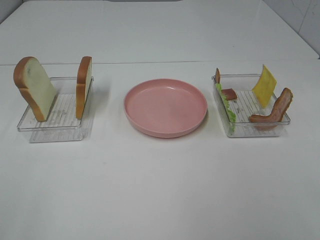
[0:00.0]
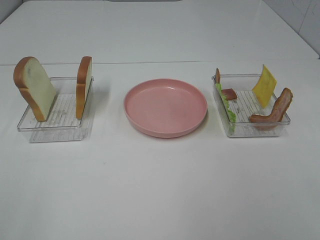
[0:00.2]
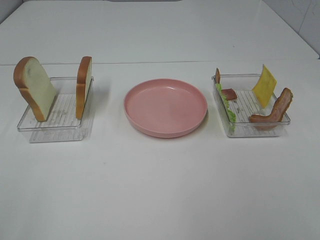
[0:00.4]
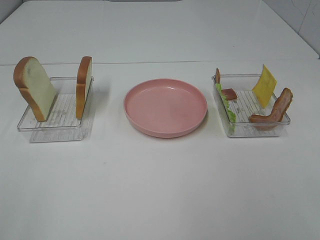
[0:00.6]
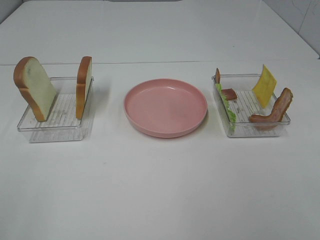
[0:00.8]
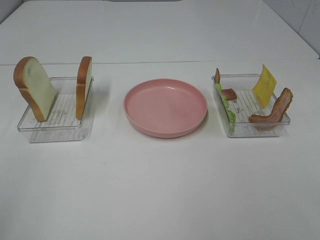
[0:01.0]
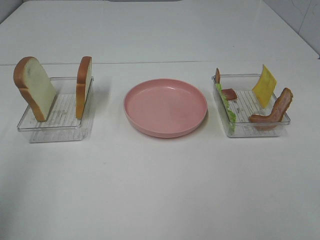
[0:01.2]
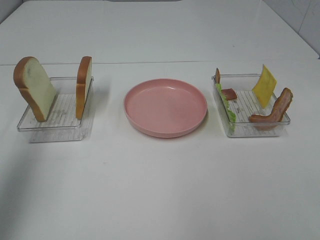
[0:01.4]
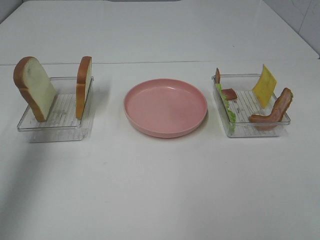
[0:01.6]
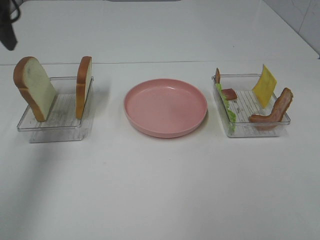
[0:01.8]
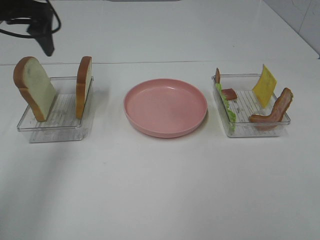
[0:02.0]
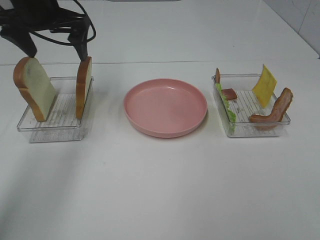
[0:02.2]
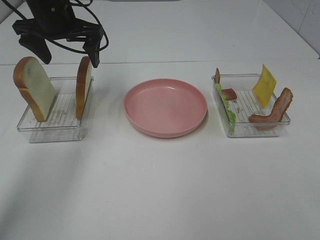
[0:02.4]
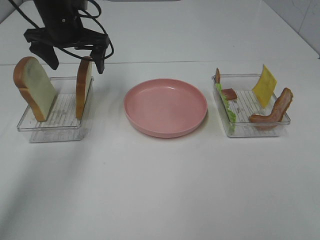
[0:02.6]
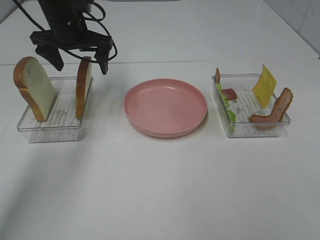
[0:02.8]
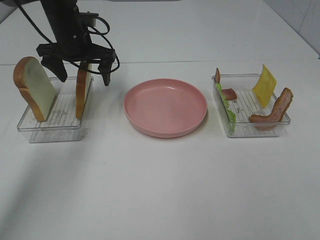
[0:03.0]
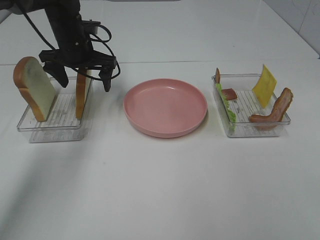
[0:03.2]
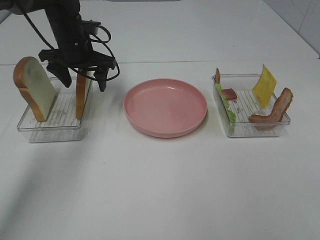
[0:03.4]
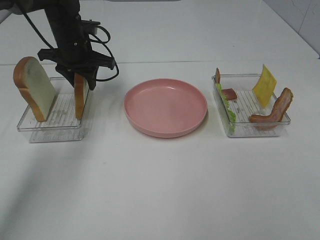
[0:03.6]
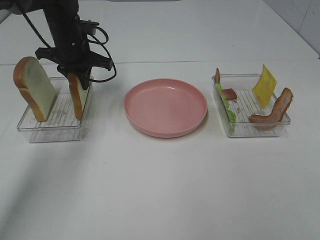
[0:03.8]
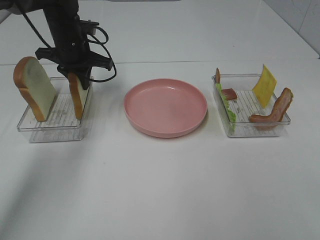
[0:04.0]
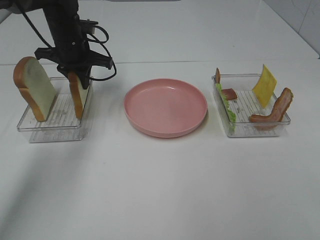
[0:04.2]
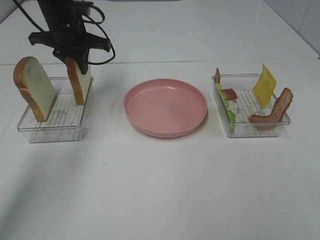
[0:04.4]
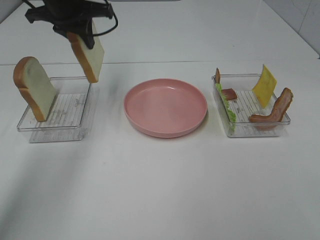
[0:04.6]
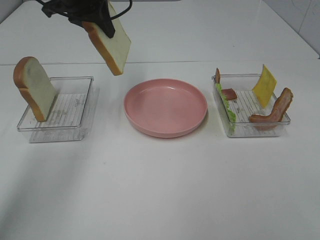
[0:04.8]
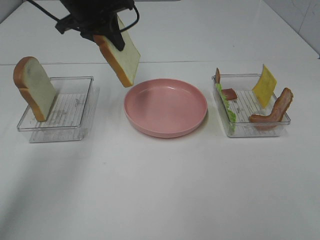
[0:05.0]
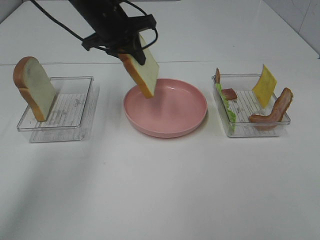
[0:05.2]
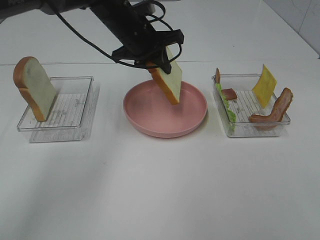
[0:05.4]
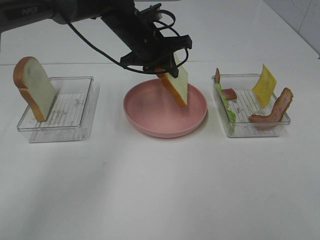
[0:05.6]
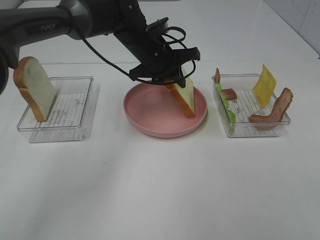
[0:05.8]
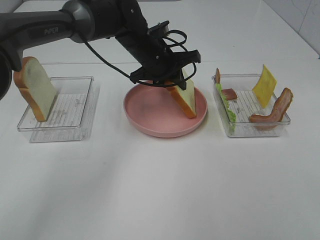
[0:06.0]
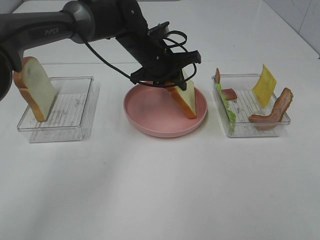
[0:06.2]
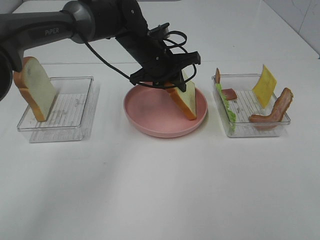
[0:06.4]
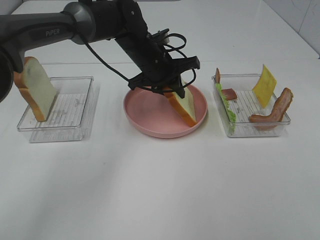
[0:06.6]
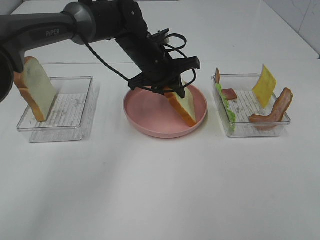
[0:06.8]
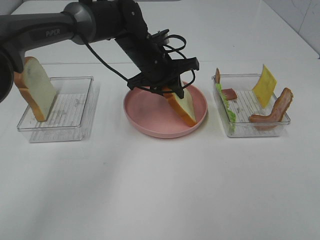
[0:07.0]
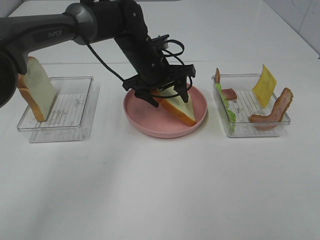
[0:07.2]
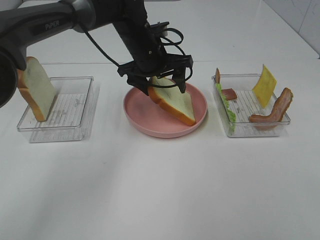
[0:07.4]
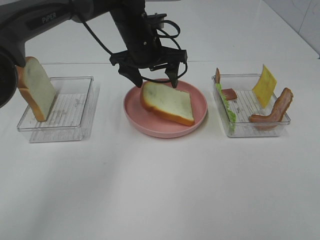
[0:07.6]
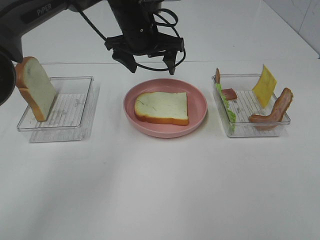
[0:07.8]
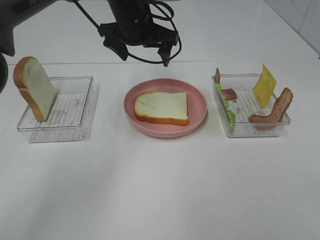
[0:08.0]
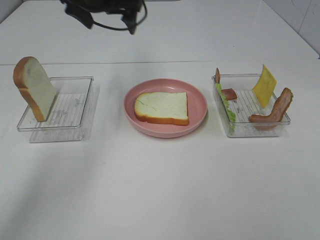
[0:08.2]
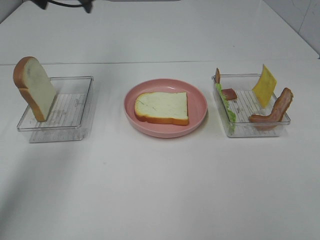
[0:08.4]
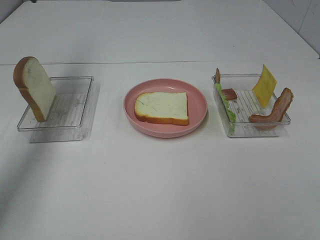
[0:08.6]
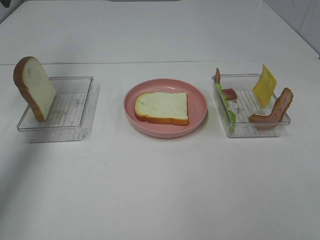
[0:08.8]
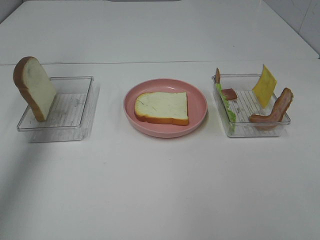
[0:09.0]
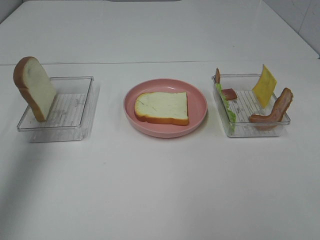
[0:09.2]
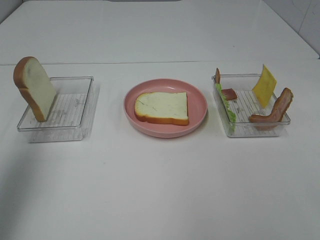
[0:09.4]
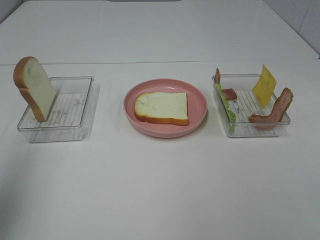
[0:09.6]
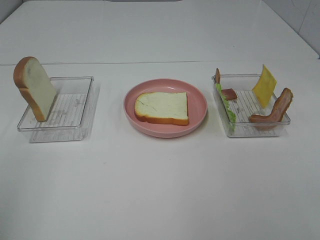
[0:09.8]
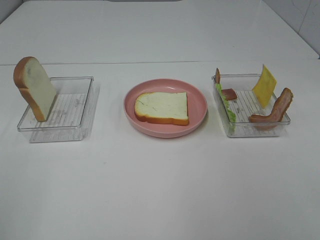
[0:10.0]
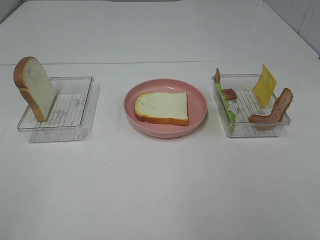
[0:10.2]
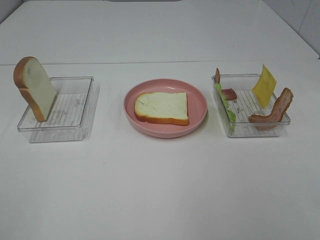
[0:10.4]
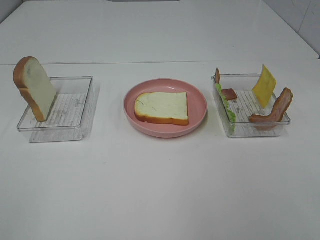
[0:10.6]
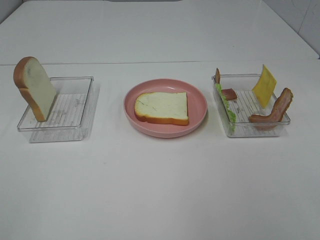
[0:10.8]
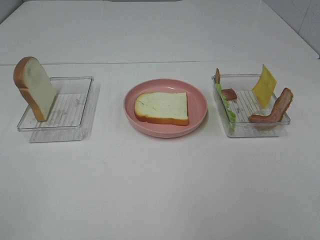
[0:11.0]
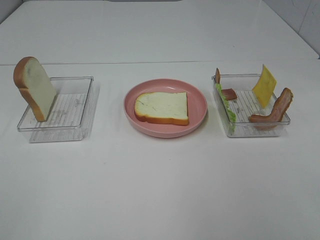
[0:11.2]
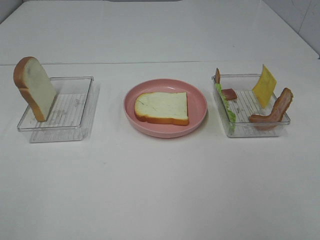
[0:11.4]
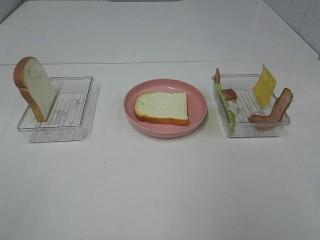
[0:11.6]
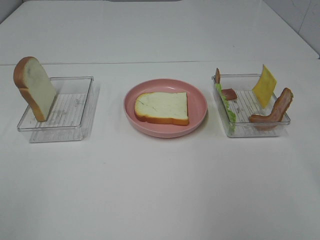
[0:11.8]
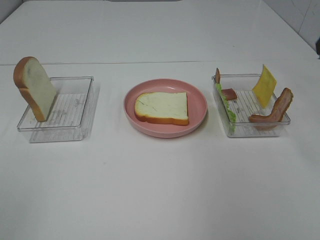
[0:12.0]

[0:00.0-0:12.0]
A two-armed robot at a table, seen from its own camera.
Task of the whole recording: Make sandwiches.
Step, 0:00.0 to 0:03.8: Left hand:grab the bread slice.
Step, 0:04.0 to 0:08.0: Left hand:place the bread slice on the plate.
0:00.0 to 0:01.6: The left gripper heads forward, covering about 30 cm.
0:01.6 to 0:03.0: The left gripper heads forward, downward and to the right, covering about 30 cm.
0:03.0 to 0:04.4: The left gripper closes its fingers.
0:04.4 to 0:06.0: The left gripper travels to the right and downward by about 15 cm.
0:06.0 to 0:07.6: The left gripper opens up.
0:07.6 to 0:09.0: The left gripper moves to the left and upward, approximately 35 cm.
0:09.0 to 0:10.4: The left gripper goes about 40 cm backward.

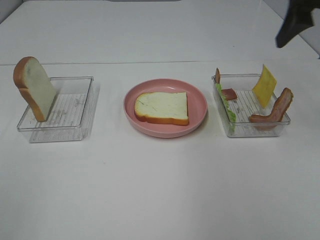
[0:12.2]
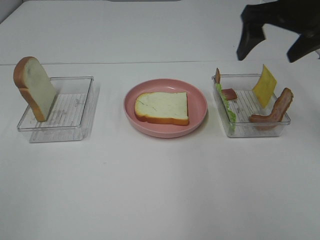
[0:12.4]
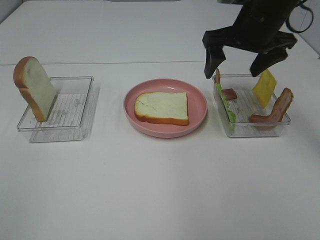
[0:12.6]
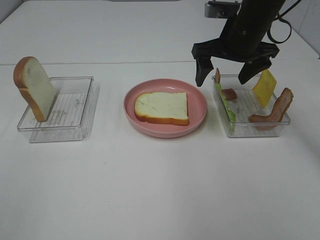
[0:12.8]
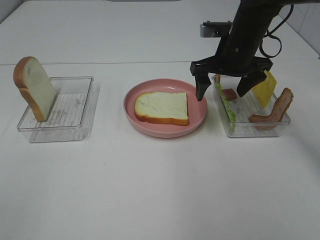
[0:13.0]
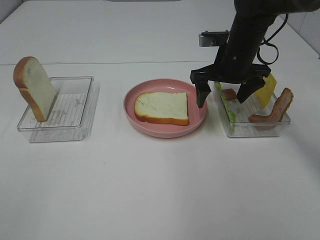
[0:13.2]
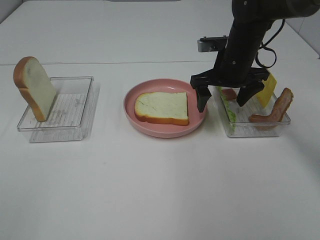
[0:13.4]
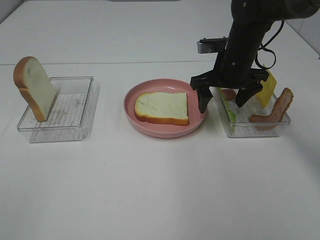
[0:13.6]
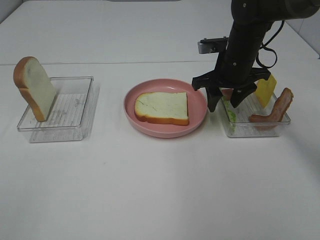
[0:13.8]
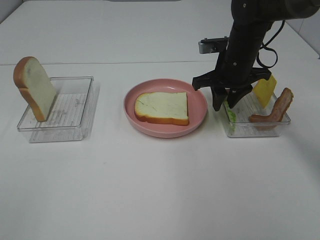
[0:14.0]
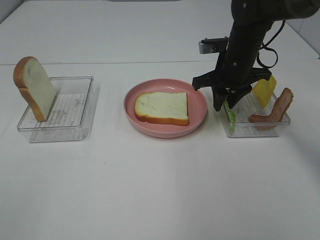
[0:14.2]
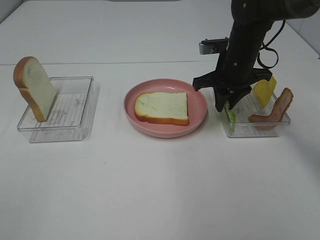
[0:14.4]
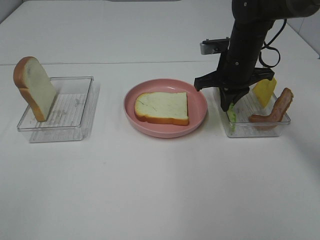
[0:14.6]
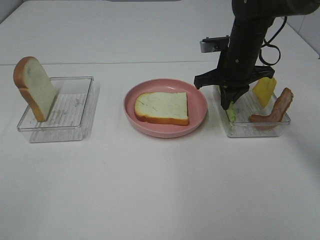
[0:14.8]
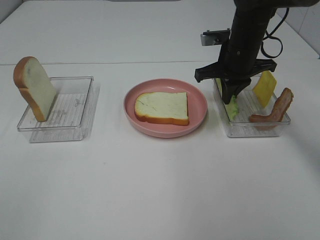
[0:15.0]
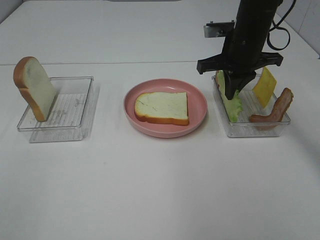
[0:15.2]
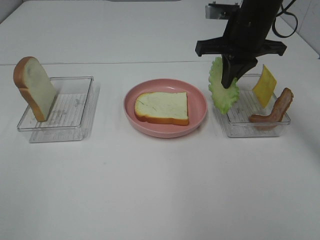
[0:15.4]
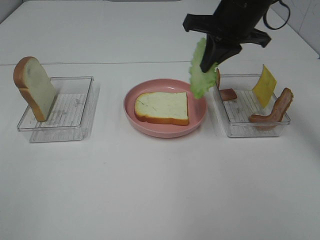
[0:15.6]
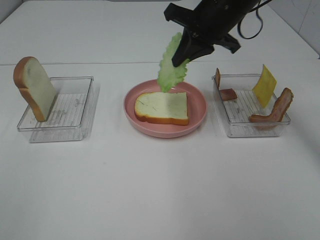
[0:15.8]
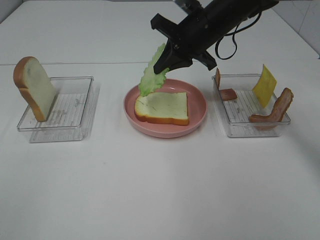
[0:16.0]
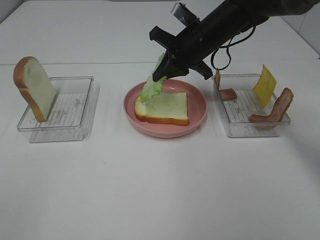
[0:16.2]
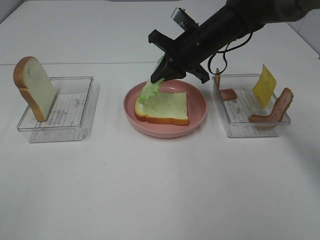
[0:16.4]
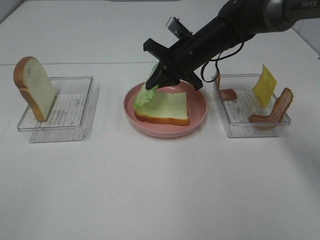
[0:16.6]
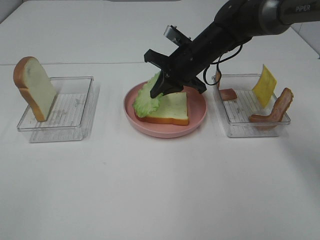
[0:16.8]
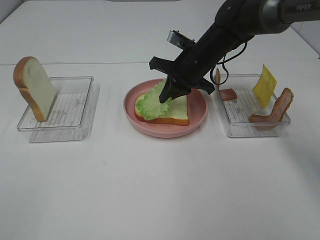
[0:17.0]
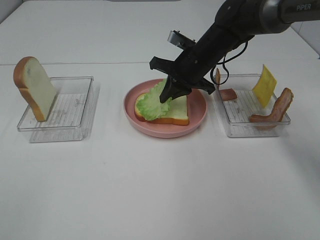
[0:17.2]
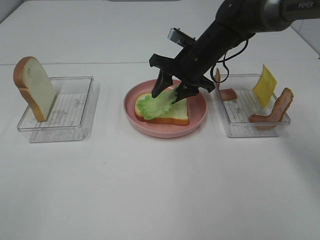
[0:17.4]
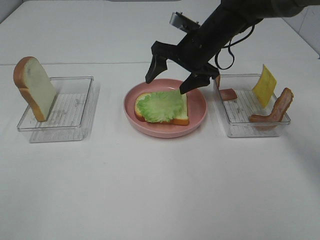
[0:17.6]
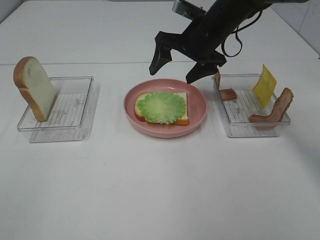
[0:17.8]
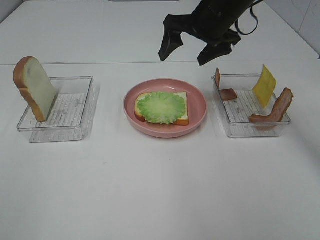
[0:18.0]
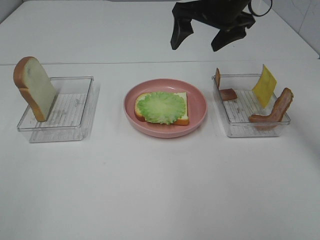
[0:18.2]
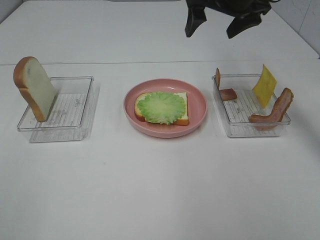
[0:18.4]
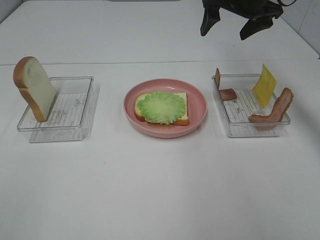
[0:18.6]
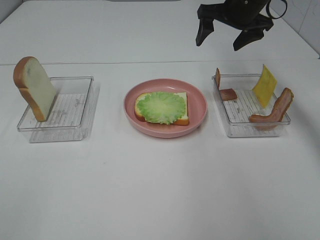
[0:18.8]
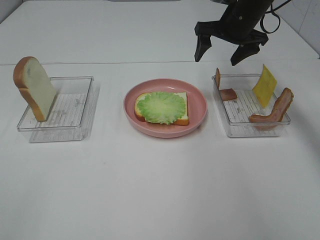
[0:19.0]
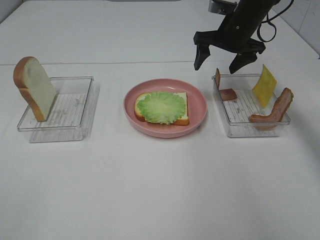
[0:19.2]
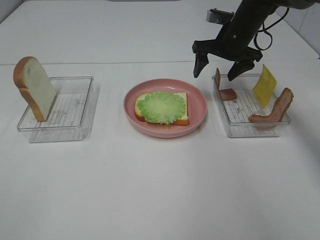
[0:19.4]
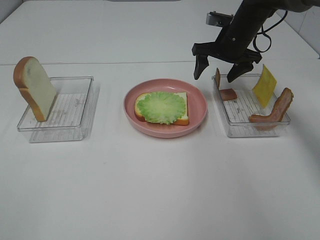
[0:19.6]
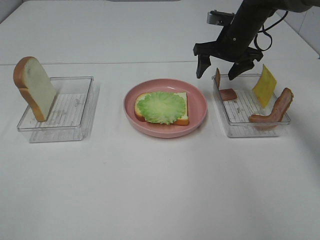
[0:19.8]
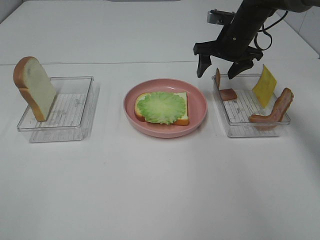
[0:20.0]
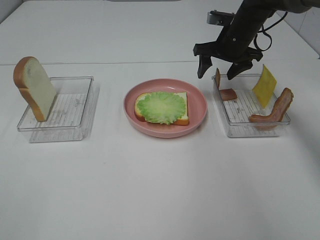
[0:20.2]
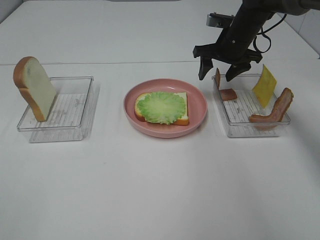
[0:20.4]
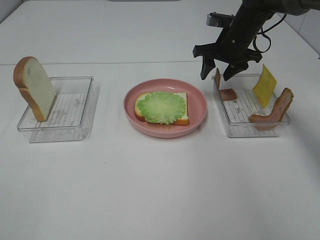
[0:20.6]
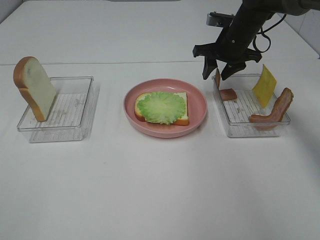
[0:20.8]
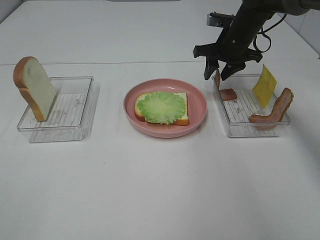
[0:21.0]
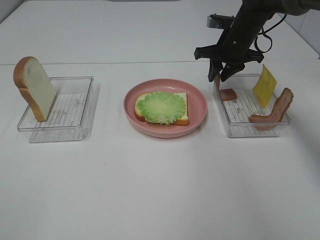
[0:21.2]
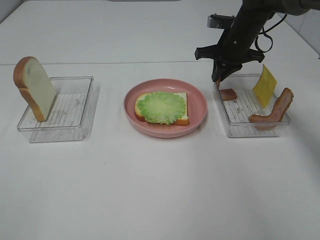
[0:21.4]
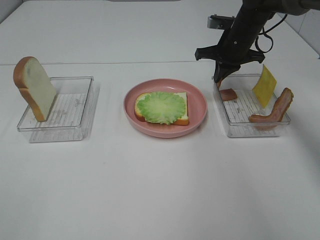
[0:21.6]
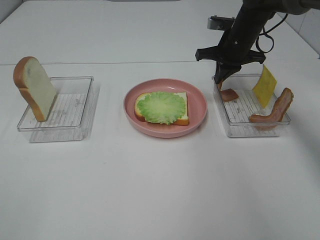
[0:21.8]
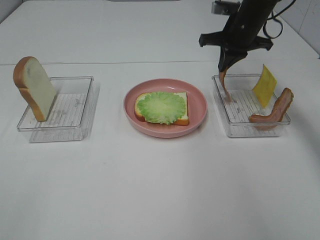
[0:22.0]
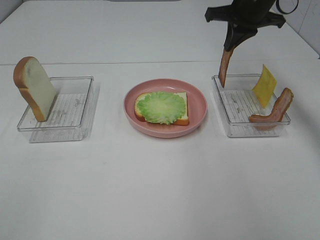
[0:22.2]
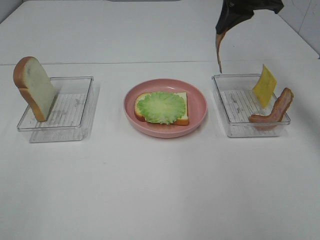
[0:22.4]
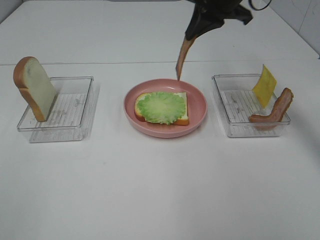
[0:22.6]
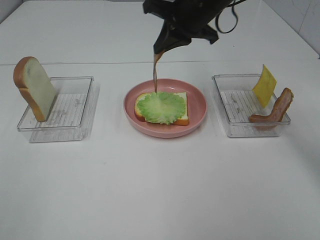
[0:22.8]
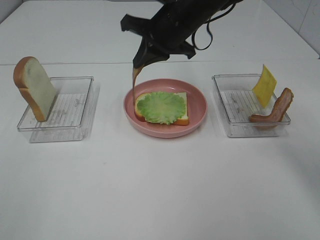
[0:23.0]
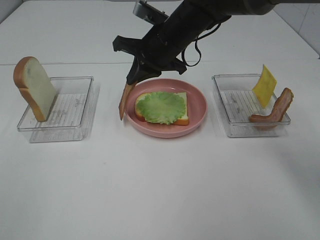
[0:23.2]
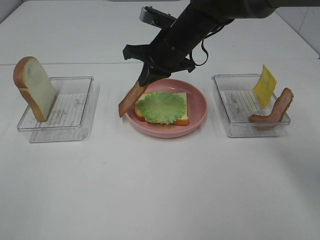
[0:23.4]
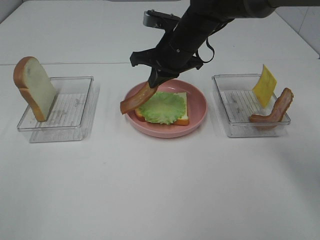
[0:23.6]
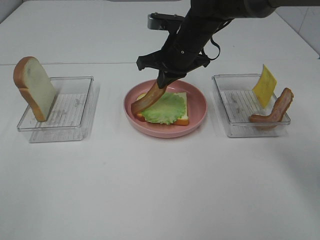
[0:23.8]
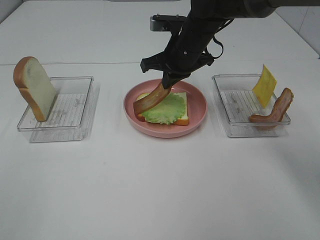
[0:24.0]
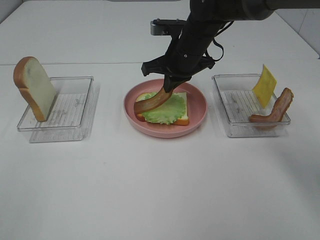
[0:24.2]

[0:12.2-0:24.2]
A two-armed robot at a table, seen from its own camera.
Task of the whole recording: Make sandwiches.
Step, 0:12.2 to 0:14.6: Right hand:grab the lettuce slice.
Step, 0:14.8 to 0:17.6: Right hand:place the lettuce slice on the bread slice.
Step, 0:17.8 to 0:21.8: Right hand:grab the bacon.
0:12.2 to 0:13.8: The right gripper is displaced downward, to the left and forward by about 20 cm, and closes its fingers.
0:13.8 to 0:15.2: The right gripper moves upward, about 5 cm, and closes.
0:15.2 to 0:16.6: The right gripper goes about 10 cm to the left and downward.
0:16.6 to 0:18.2: The right gripper shifts some 15 cm upward, and opens.
0:18.2 to 0:19.8: The right gripper travels downward and forward by some 15 cm.
0:19.8 to 0:21.2: The right gripper closes its fingers.
0:21.2 to 0:22.6: The right gripper heads upward, backward and to the left, covering roughly 15 cm, and closes up.
0:22.6 to 0:24.2: The right gripper shifts approximately 15 cm downward and to the left.
